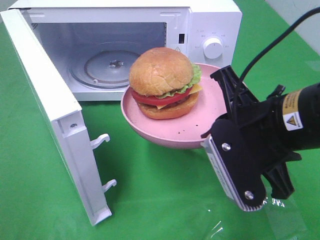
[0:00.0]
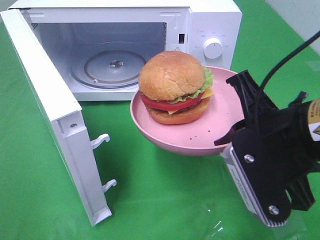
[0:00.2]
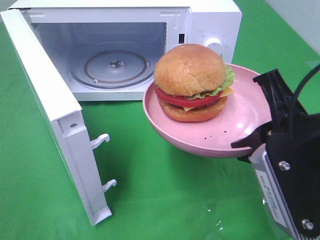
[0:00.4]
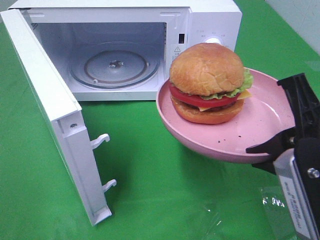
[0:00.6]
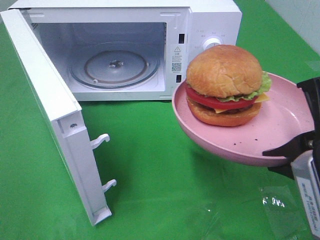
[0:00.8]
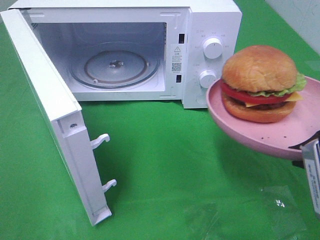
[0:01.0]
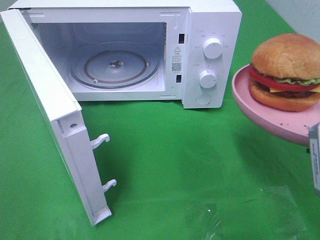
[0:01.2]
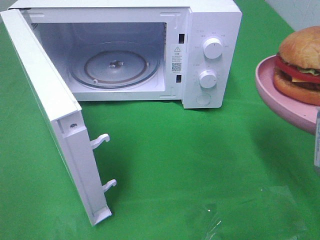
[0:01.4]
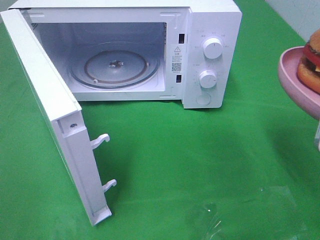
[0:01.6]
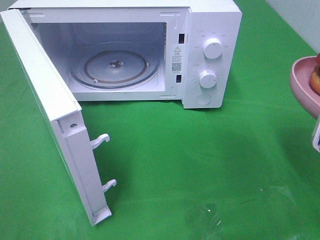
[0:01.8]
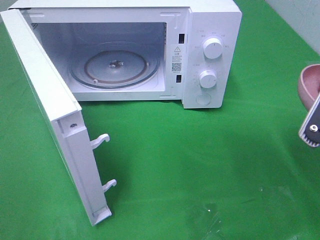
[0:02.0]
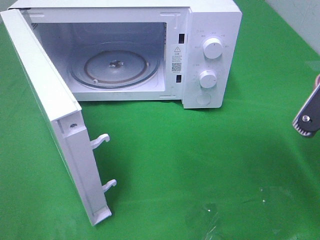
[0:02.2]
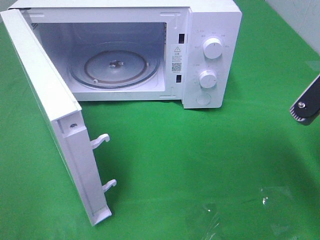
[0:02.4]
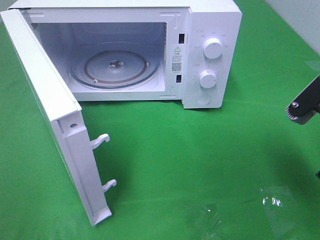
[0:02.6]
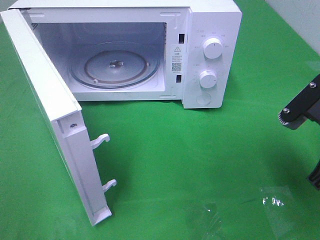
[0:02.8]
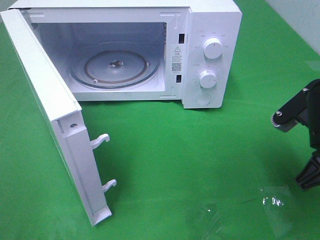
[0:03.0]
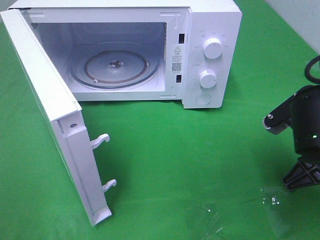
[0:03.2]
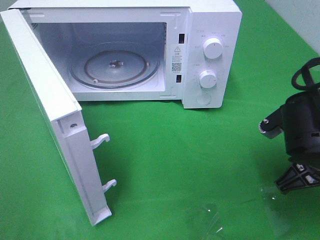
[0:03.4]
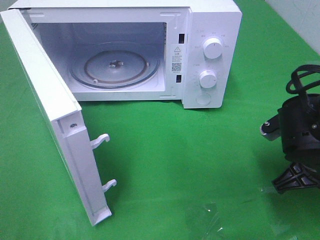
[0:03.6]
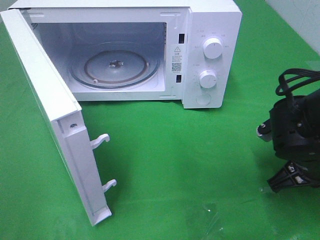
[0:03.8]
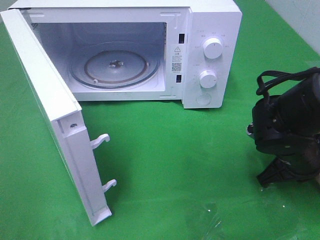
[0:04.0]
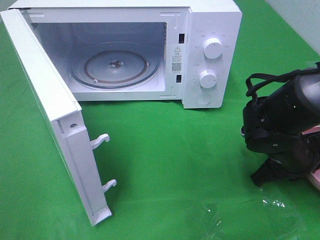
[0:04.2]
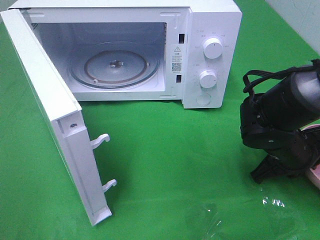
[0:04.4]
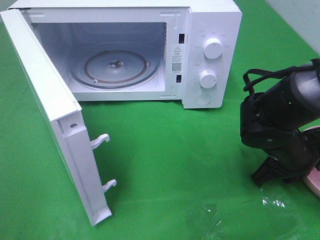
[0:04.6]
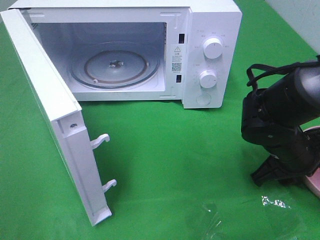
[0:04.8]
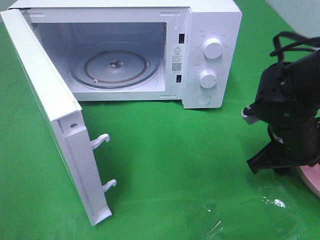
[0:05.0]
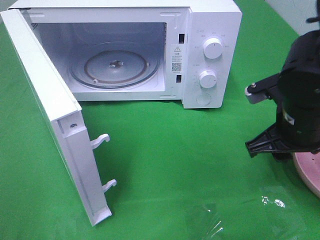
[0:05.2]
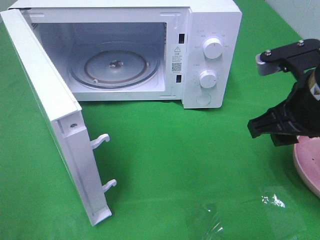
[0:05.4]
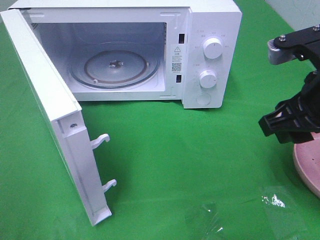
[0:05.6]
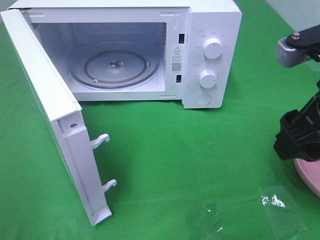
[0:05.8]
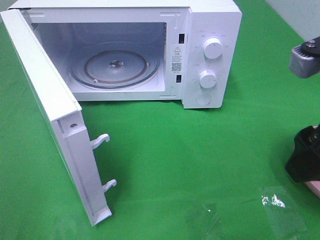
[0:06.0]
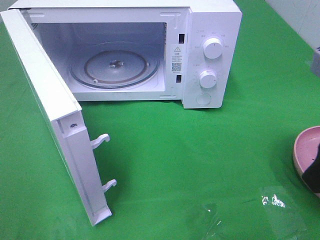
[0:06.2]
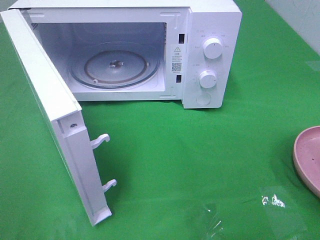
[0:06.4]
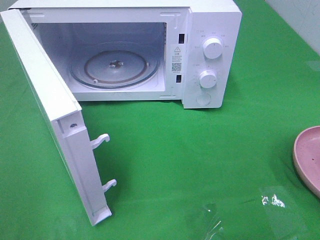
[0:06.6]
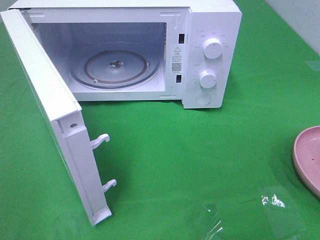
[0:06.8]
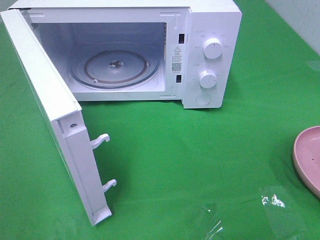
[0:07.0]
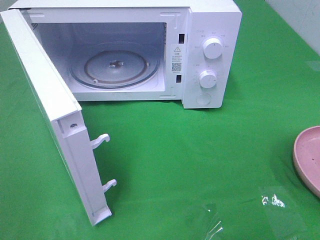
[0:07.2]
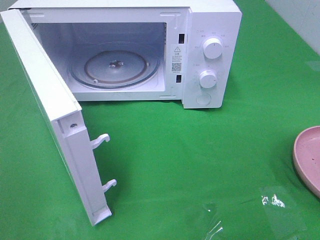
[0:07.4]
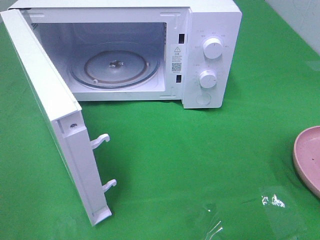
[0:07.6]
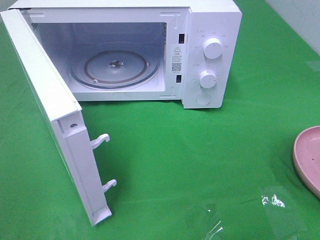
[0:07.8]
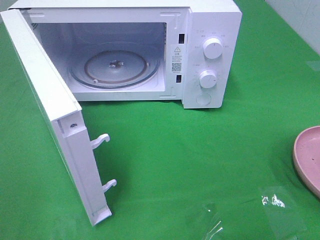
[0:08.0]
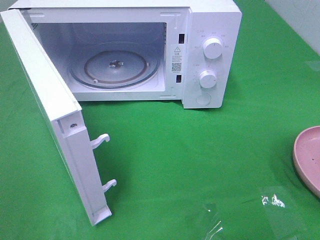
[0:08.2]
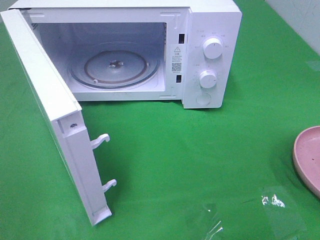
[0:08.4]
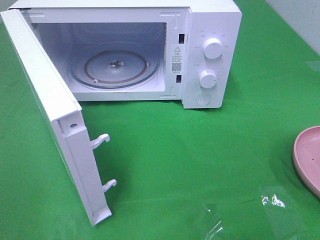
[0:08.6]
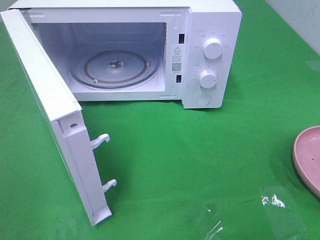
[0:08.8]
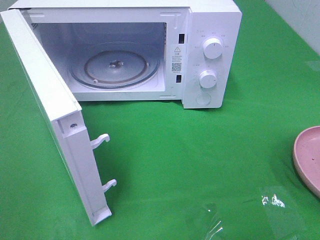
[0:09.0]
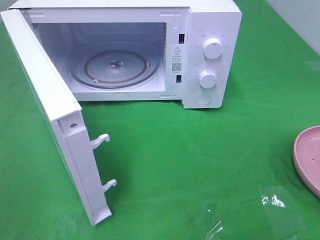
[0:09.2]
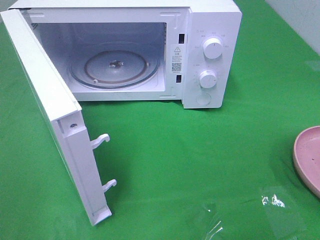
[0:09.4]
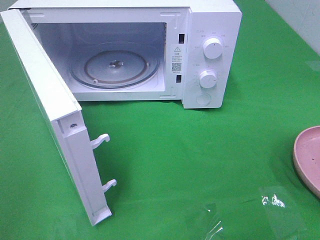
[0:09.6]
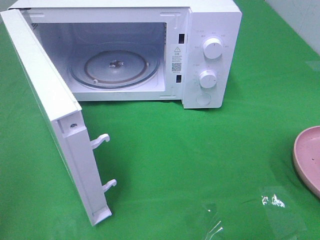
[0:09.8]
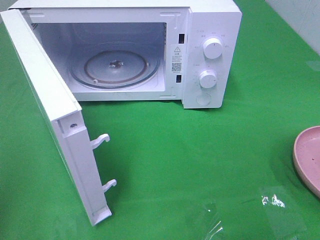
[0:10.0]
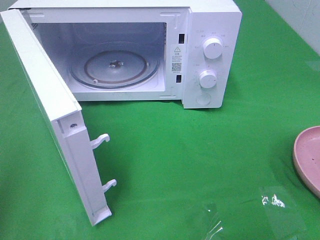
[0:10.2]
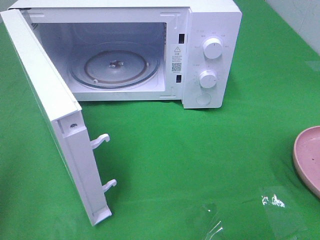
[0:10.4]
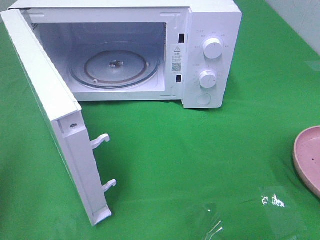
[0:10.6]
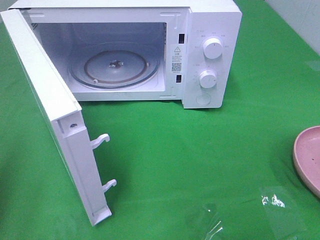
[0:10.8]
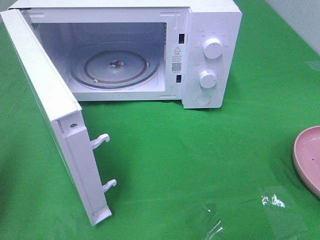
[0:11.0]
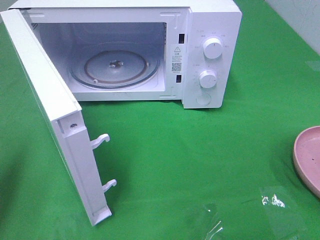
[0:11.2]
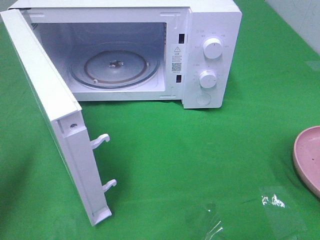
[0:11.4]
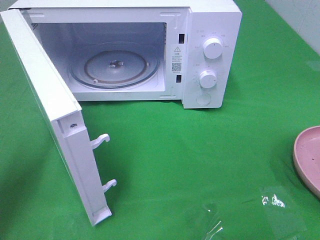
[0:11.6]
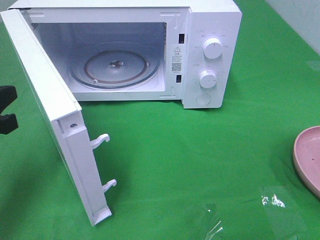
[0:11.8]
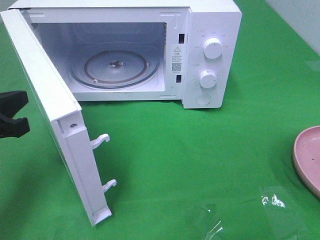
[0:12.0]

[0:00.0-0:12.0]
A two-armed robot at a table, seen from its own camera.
Task of the whole recording: Heat the burger.
Step, 0:00.0 to 0:04.8: Right hand: place the plate on the table.
0:00.0 to 0:01.6: The right gripper goes about 10 cm to the right.
0:01.6 to 0:03.0: The right gripper is displaced downward and forward by roughly 10 cm.
0:03.0 to 0:04.4: The right gripper heads downward and forward, covering approximately 10 cm.
0:04.4 to 0:06.0: The right gripper moves upward and backward, some 25 cm, and opens its fingers.
0:06.0 to 0:07.6: The right gripper moves backward and to the right, some 20 cm.
0:07.6 to 0:09.0: Both grippers stay put.
0:10.4 to 0:12.0: The left gripper goes about 15 cm forward, downward and to the right.

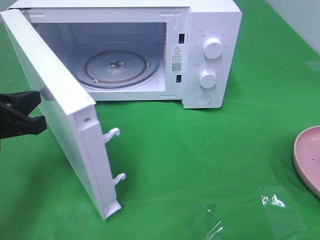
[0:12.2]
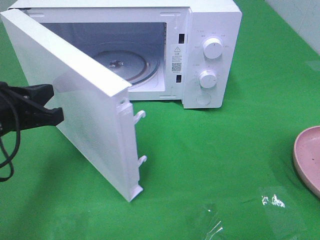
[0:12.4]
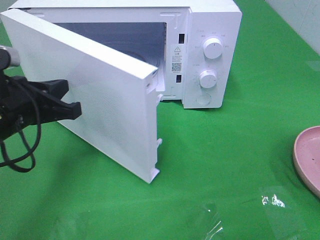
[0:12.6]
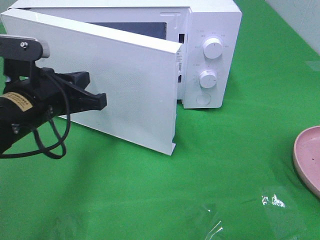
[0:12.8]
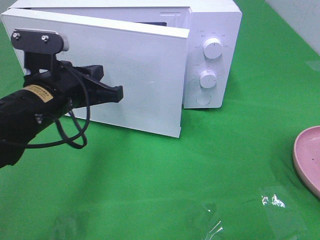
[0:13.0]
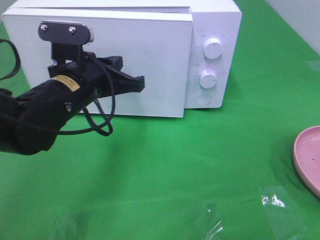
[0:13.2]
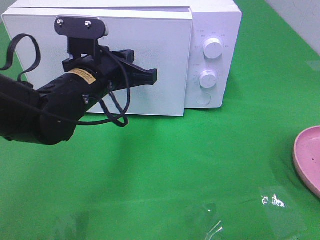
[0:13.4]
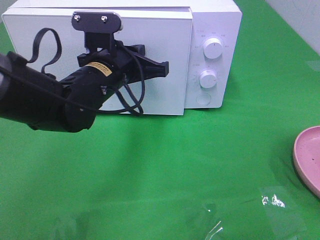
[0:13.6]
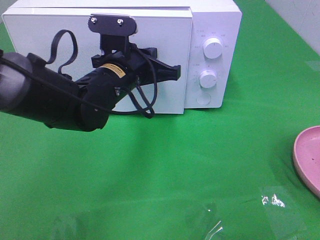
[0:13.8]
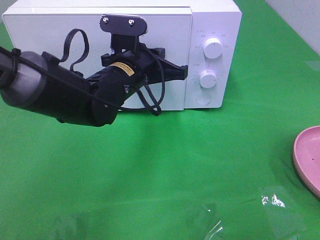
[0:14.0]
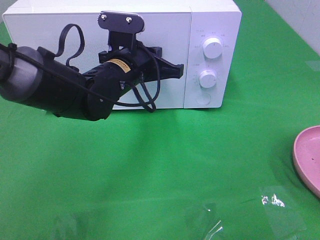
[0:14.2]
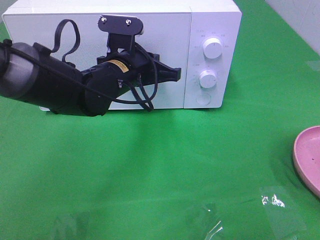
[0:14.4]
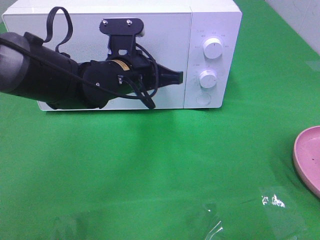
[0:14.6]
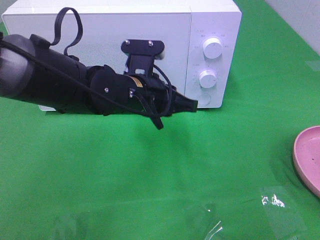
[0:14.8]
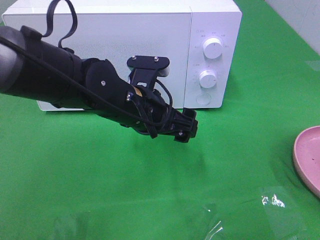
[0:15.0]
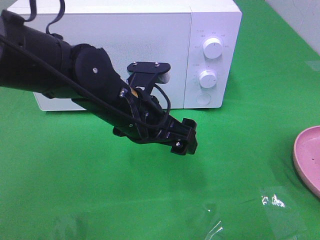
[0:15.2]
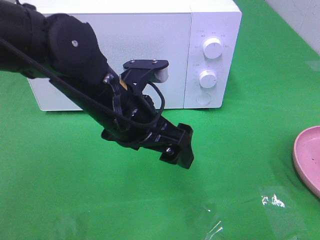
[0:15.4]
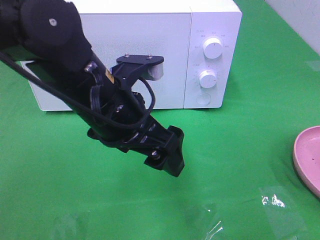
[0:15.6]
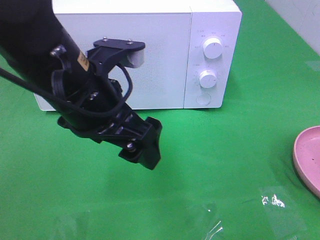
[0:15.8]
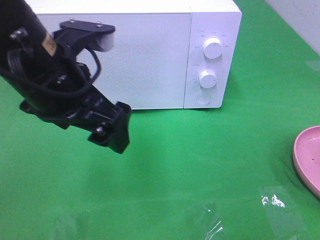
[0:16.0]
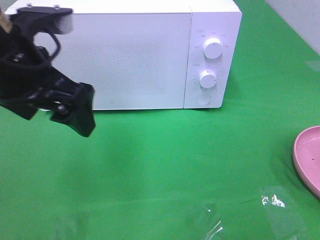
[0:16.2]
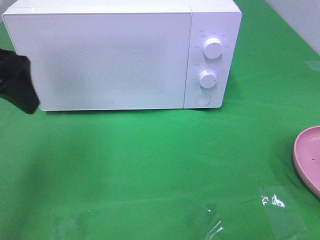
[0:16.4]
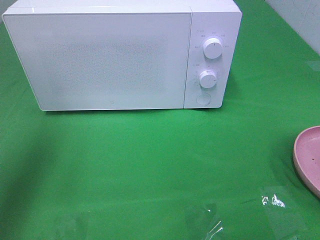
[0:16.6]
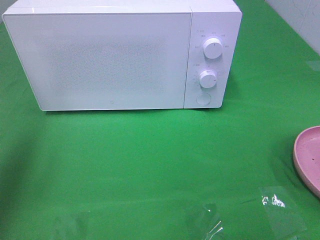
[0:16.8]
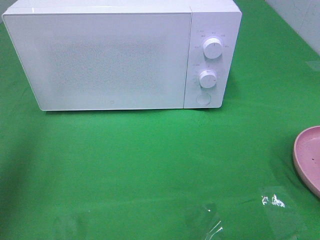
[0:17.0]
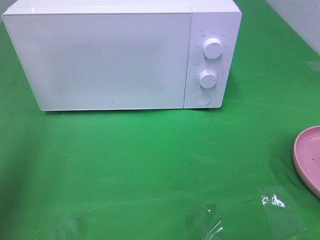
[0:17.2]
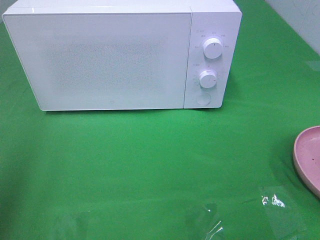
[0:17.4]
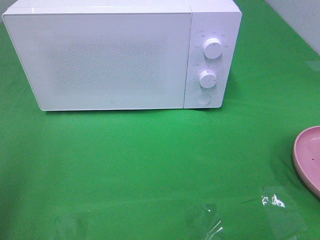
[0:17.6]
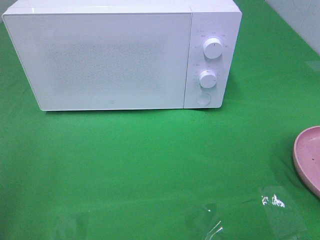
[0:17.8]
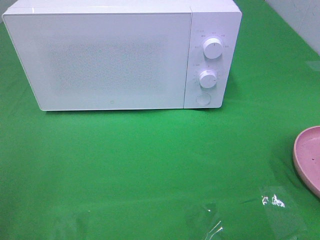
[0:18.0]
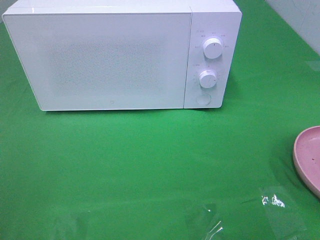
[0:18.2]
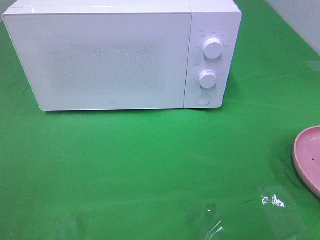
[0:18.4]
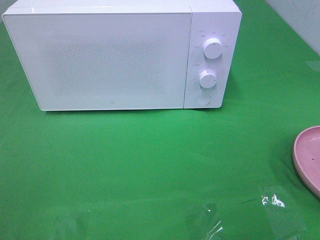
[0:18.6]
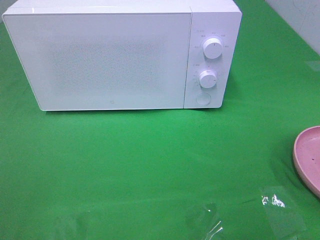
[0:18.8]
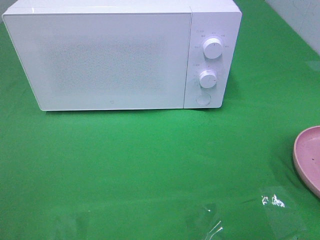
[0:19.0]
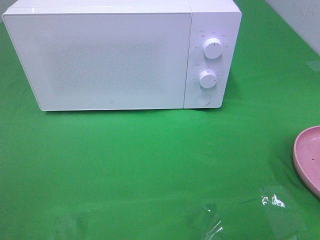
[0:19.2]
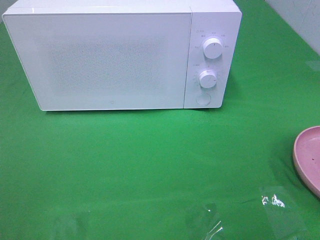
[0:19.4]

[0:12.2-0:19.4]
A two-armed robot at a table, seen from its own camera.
Task of the whole recording: Heat the burger.
Step, 0:12.2 to 0:14.6: Left hand: close the microwave door.
0:12.2 to 0:13.6: The left gripper moves to the right and forward, some 20 cm.
0:13.6 to 0:15.0: The left gripper moves some 5 cm, and opens up.
0:15.0 to 0:16.6: The left gripper shifts about 30 cm to the left and upward.
0:16.6 to 0:18.0: The left gripper heads backward, covering about 20 cm.

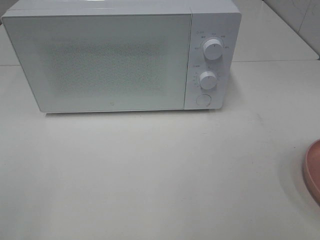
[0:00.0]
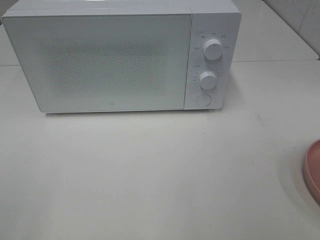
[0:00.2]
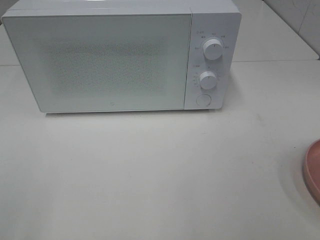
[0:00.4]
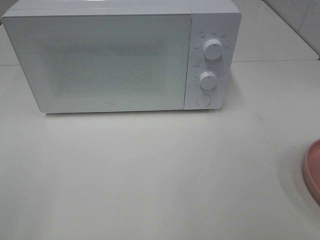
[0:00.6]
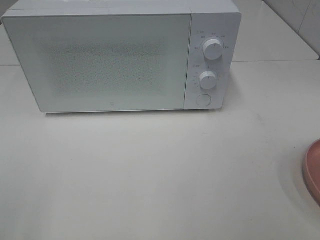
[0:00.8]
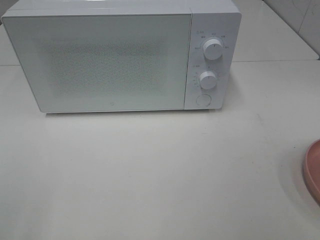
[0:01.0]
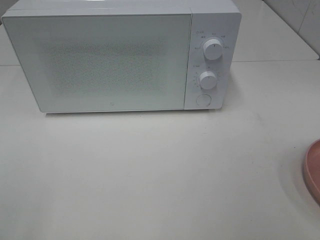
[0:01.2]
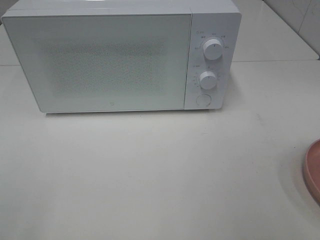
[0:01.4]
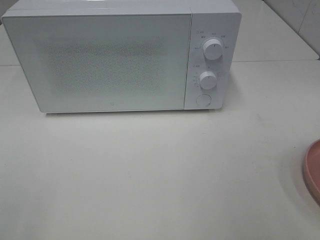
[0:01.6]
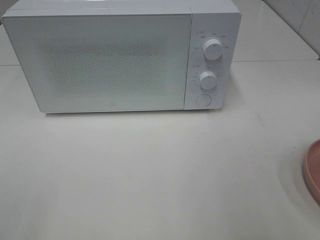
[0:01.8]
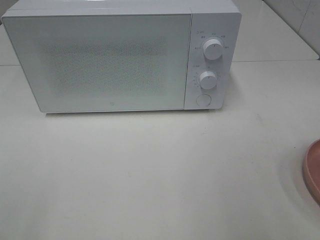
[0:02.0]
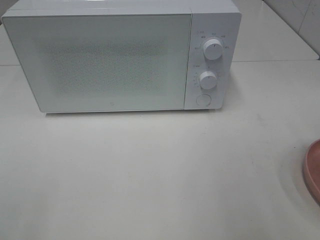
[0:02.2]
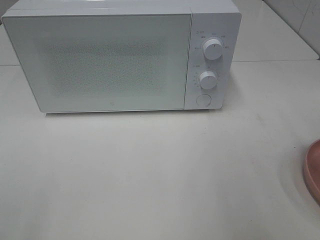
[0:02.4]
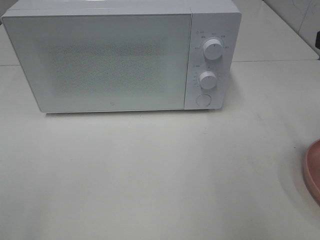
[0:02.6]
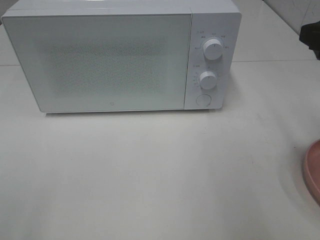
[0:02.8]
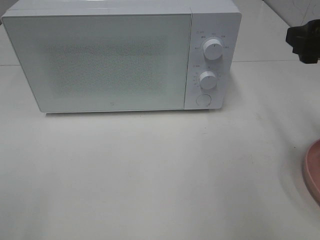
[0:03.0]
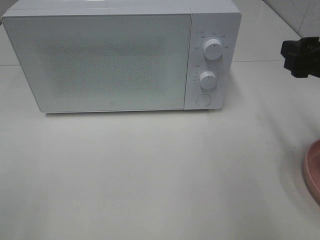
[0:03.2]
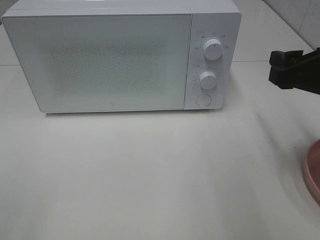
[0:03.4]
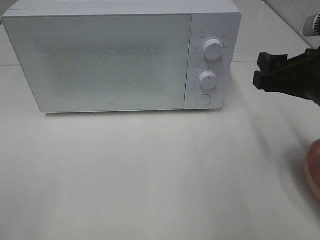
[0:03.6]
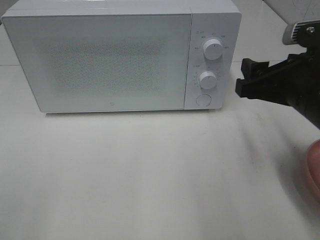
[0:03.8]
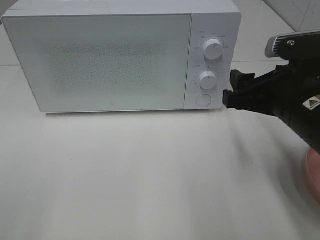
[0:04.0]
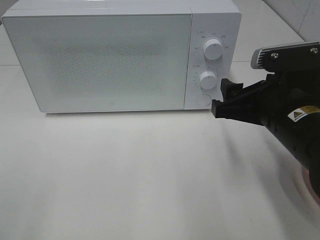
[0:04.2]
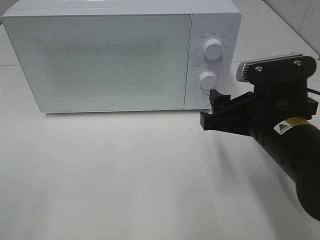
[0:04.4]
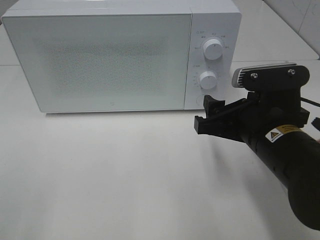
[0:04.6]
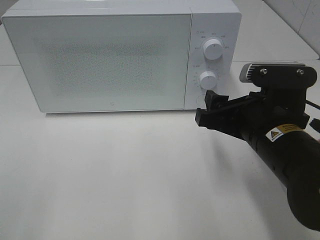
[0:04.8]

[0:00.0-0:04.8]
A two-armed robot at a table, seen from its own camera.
Task of the whole recording: Heat the burger.
0:01.6 to 0:03.2: The right gripper shifts approximately 20 cm forward and downward.
0:03.2 to 0:04.8: The right gripper shifts approximately 15 cm to the left and downward.
